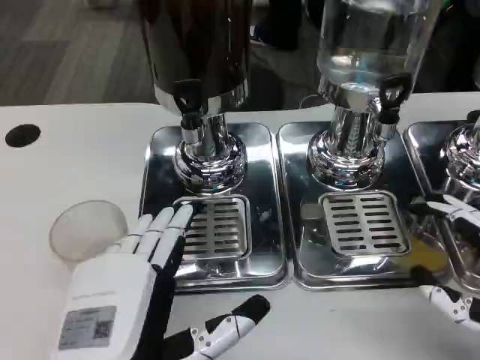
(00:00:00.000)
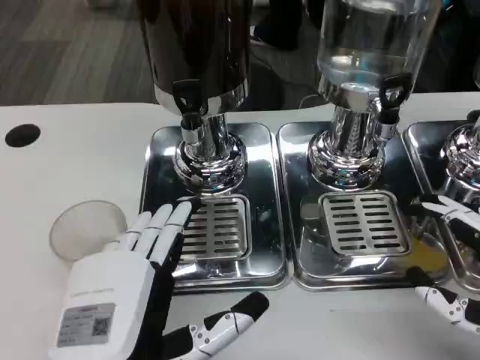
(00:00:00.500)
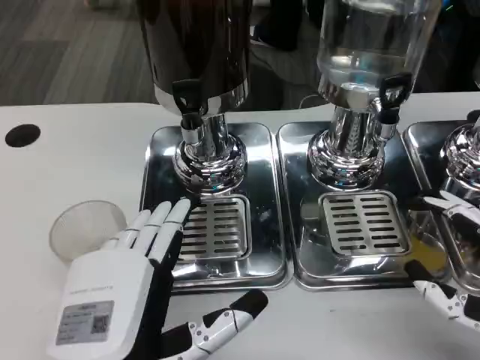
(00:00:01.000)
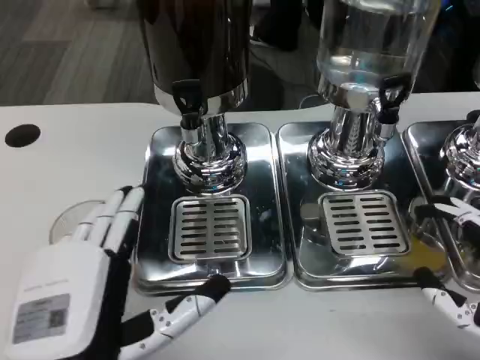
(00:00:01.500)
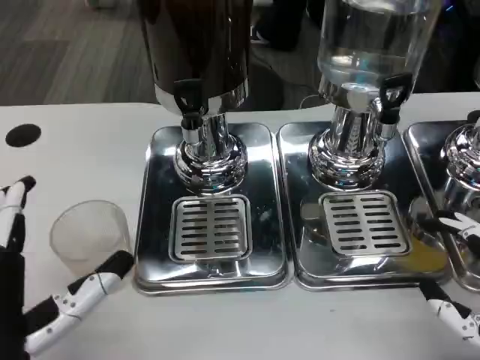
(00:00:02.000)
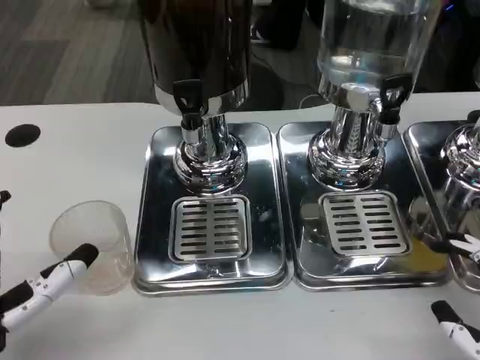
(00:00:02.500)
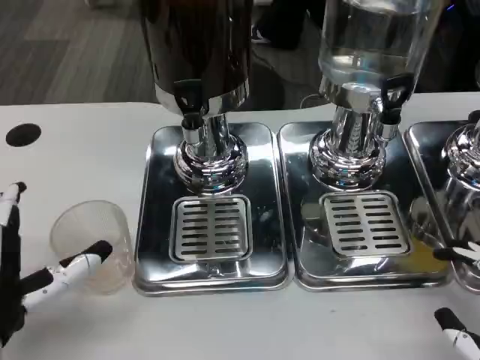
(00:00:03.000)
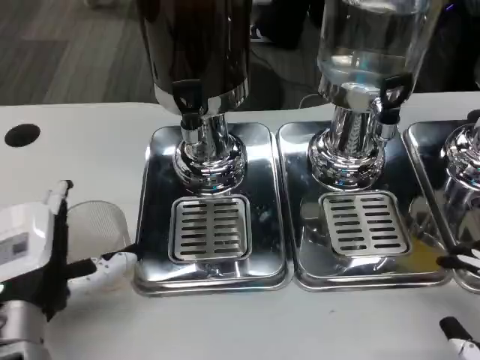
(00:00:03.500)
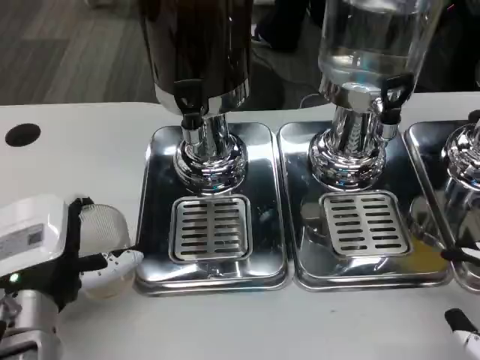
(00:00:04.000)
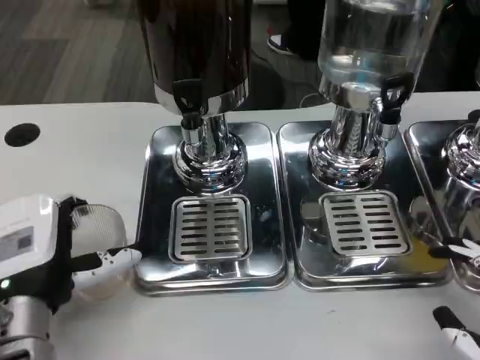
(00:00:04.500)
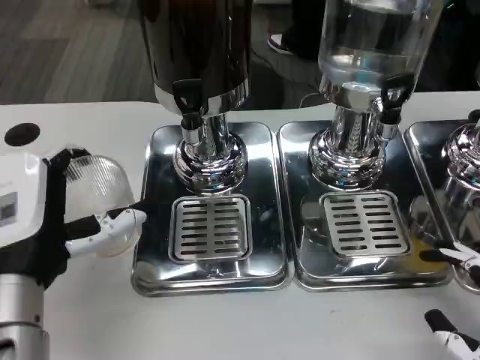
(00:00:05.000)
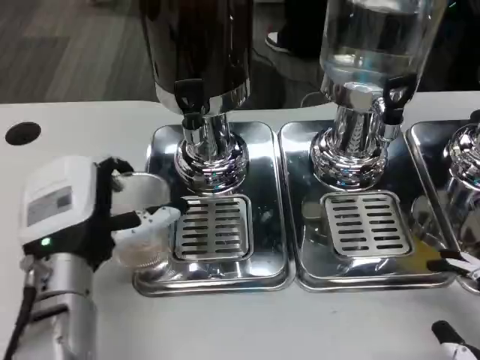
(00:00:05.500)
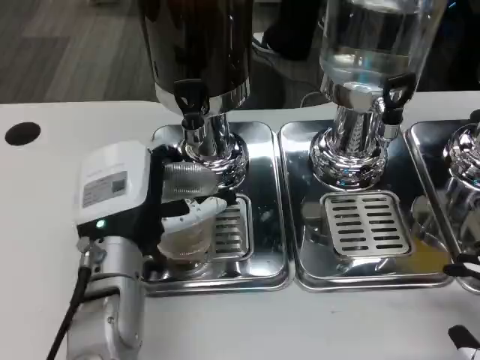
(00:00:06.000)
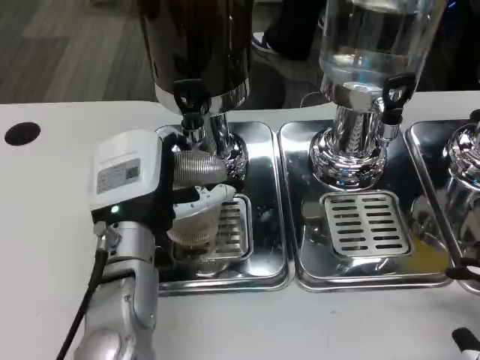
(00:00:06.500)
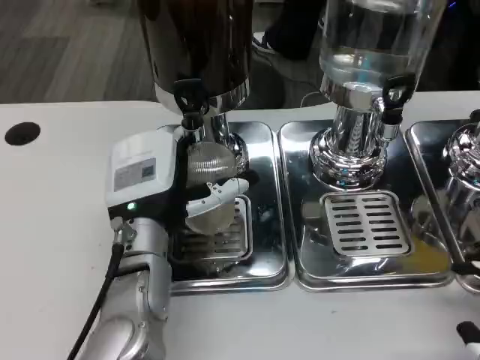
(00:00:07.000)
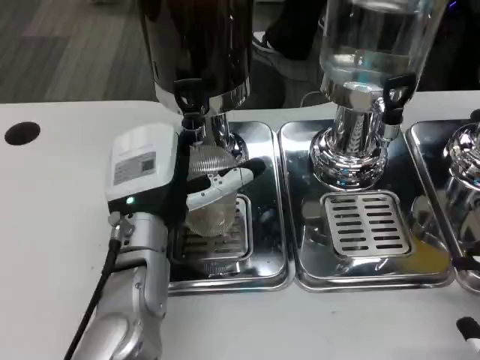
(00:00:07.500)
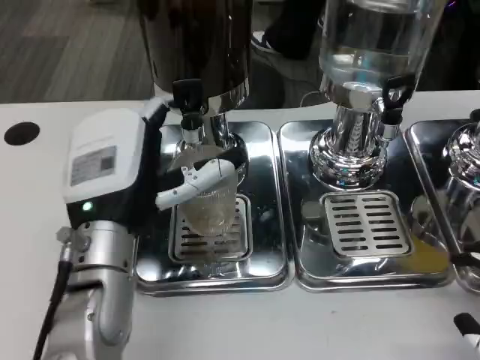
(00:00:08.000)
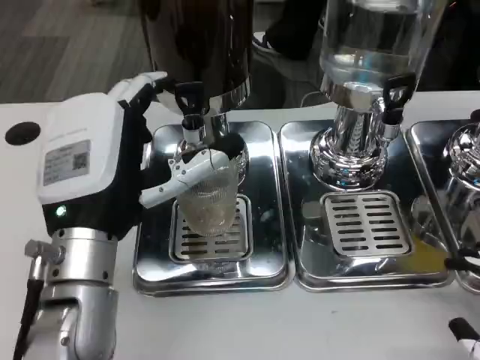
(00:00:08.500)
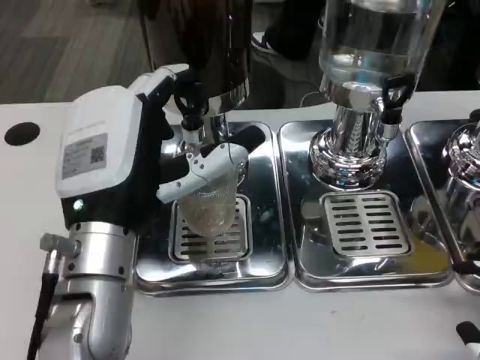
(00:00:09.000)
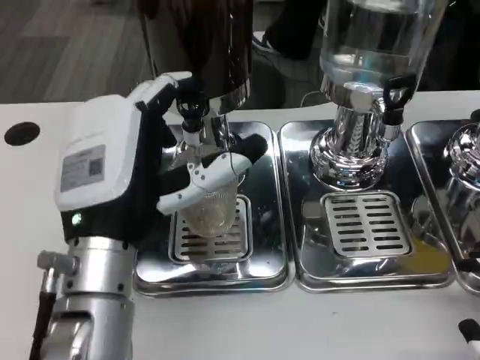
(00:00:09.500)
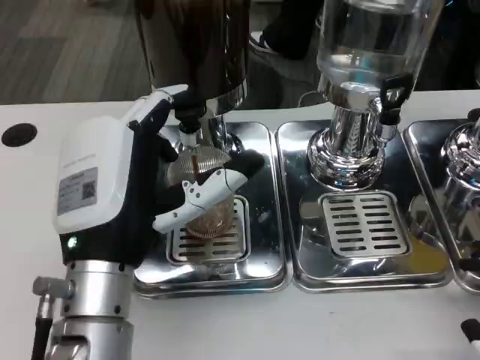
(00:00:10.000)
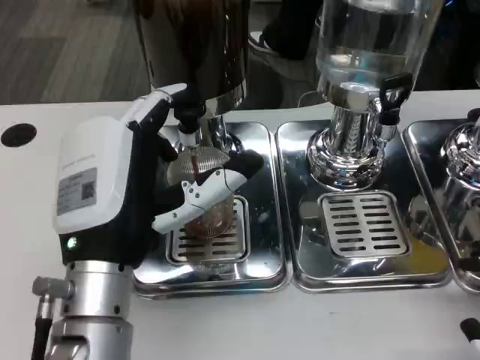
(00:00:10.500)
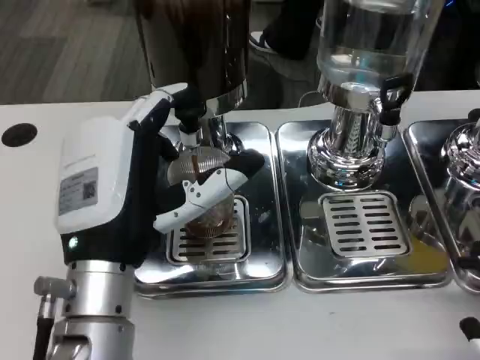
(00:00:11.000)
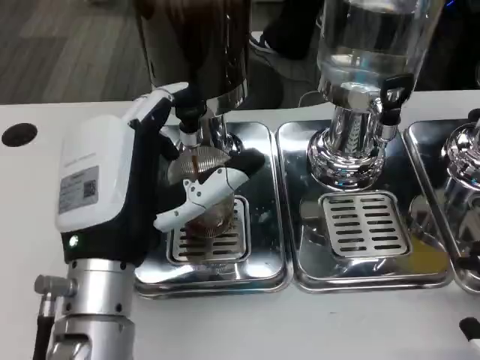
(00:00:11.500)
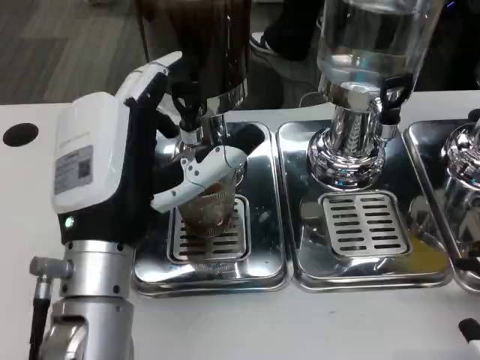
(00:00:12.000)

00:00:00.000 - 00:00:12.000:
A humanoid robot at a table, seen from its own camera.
Task of the whole recording: Grasp the cup under the faucet to collect the drink, then remove the cup.
00:00:00.000 - 00:00:02.000: The left hand goes some 5 cm to the left.
00:00:02.000 - 00:00:04.000: The left hand shifts some 10 cm forward.
00:00:04.000 - 00:00:06.000: The left hand shifts roughly 5 cm to the right.
00:00:06.000 - 00:00:08.000: The hands move only a little.
00:00:10.000 - 00:00:12.000: There are only small adjustments of the hands.

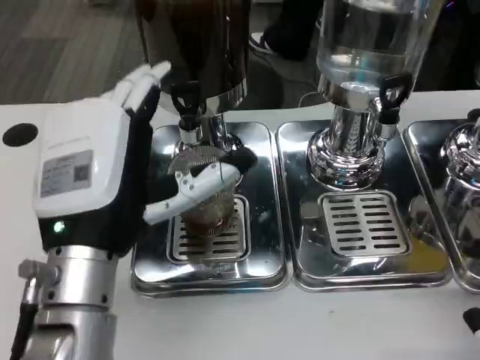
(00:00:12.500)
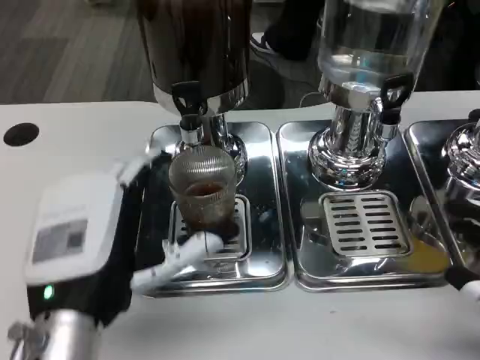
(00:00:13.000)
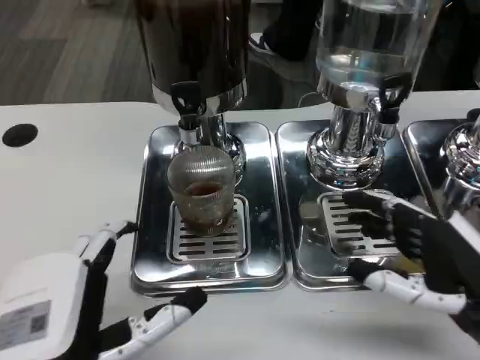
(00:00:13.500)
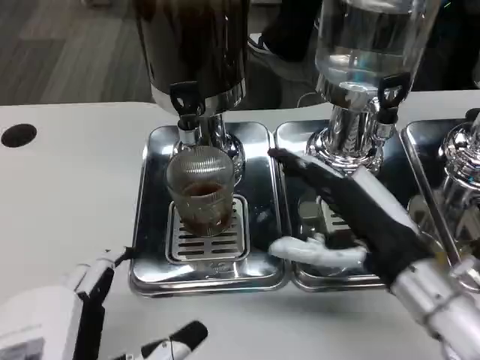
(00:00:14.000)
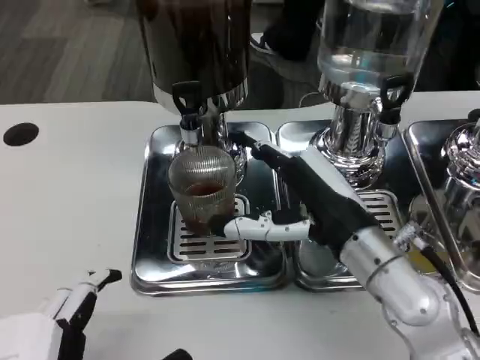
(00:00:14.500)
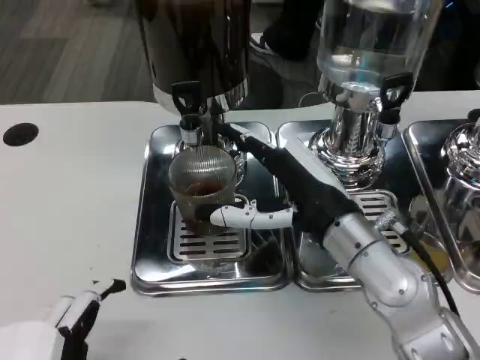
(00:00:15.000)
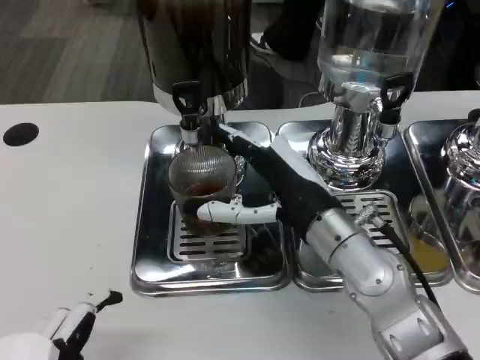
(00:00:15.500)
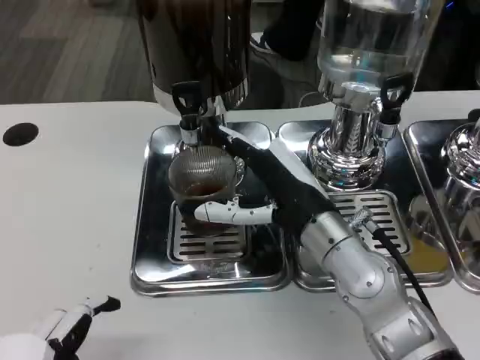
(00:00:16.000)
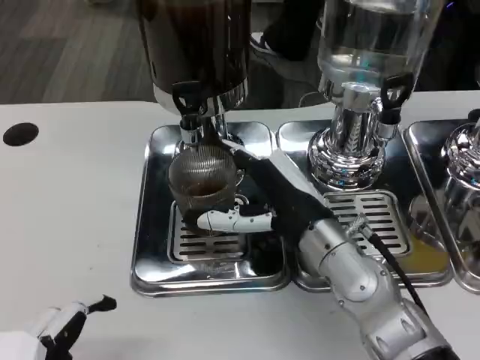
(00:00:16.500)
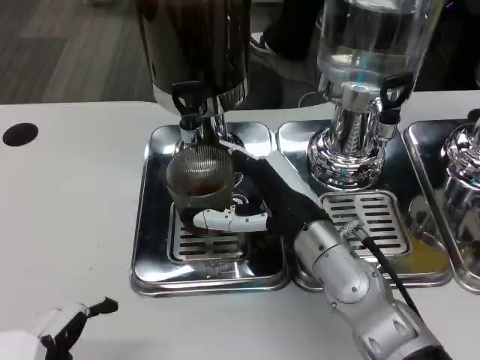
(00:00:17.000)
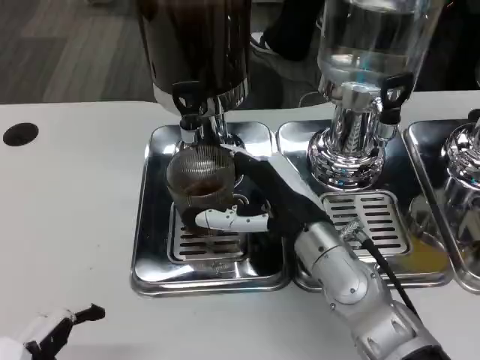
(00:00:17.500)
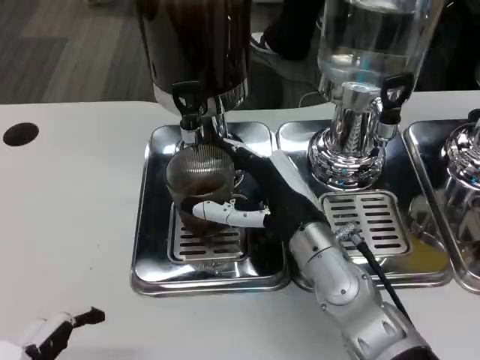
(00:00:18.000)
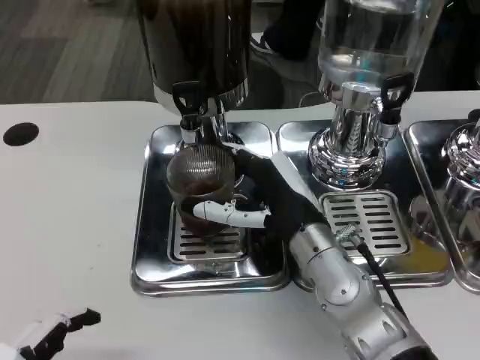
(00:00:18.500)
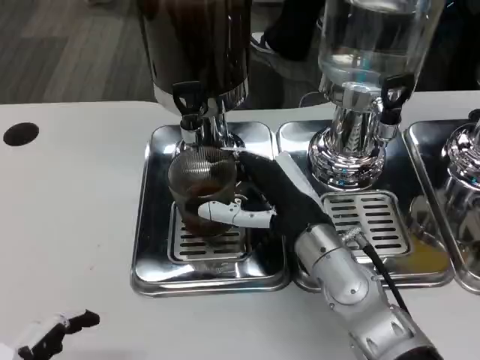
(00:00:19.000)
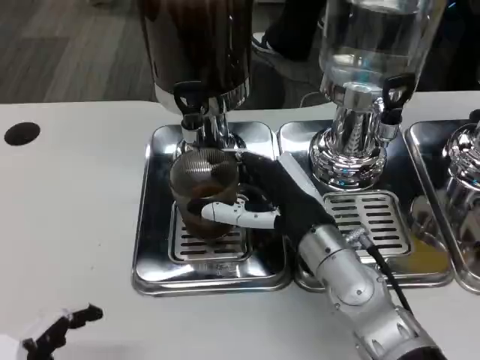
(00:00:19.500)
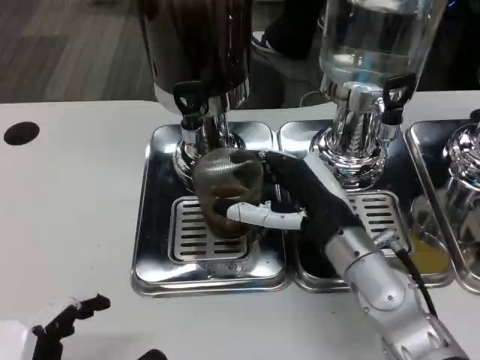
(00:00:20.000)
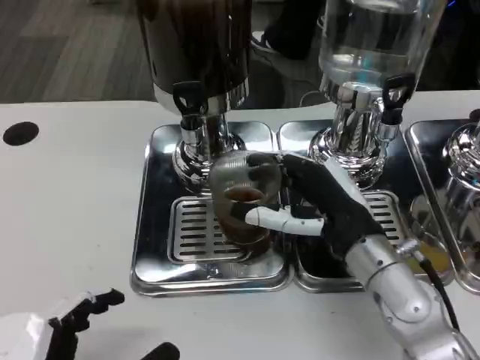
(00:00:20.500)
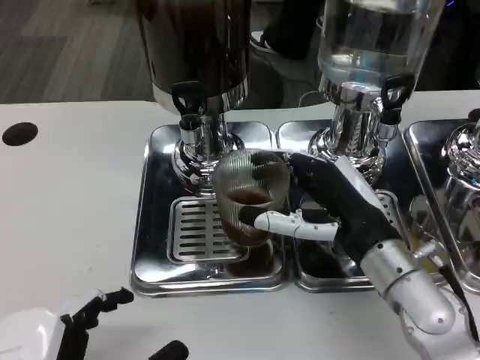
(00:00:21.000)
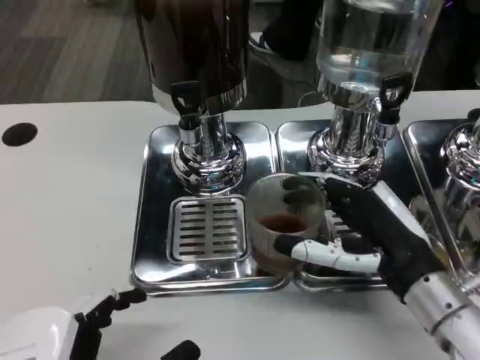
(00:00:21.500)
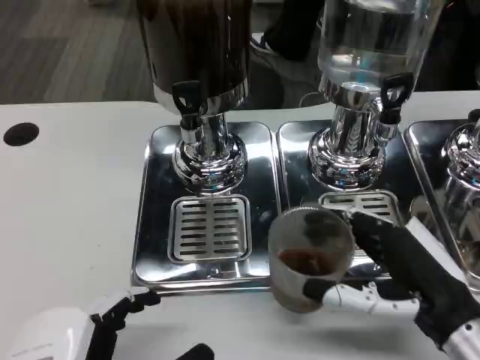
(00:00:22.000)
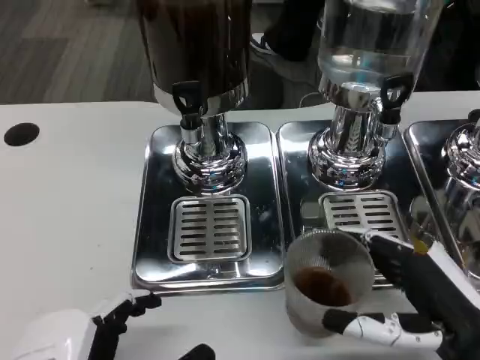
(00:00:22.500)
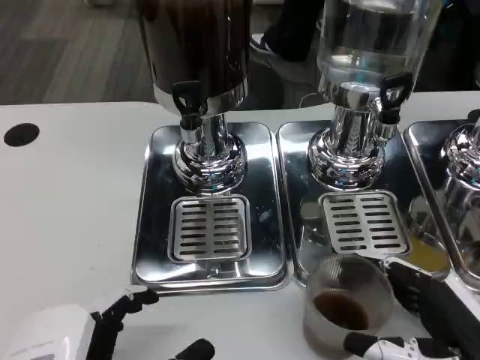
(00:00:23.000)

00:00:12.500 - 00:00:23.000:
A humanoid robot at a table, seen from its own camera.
Task of the whole recording: Grasp the cup under the faucet to collect the drink, then remove the cup.
00:00:12.500 - 00:00:14.500: The left hand shifts some 15 cm backward; the right hand goes some 25 cm to the left and forward.
00:00:14.500 - 00:00:16.500: The right hand ends up about 5 cm from where it was.
00:00:16.500 - 00:00:19.000: The hands make only small movements.
00:00:19.000 - 00:00:21.000: The right hand goes about 5 cm to the right.
00:00:21.000 - 00:00:23.000: The right hand shifts approximately 15 cm backward, to the right and downward.

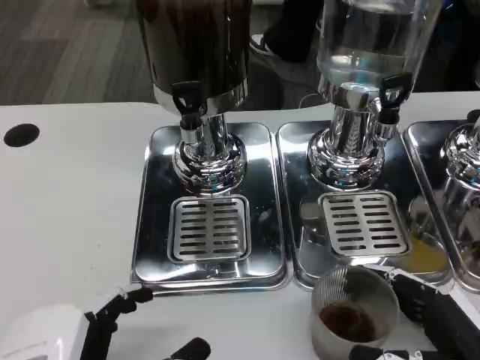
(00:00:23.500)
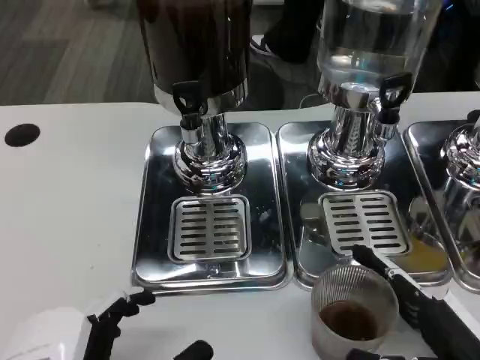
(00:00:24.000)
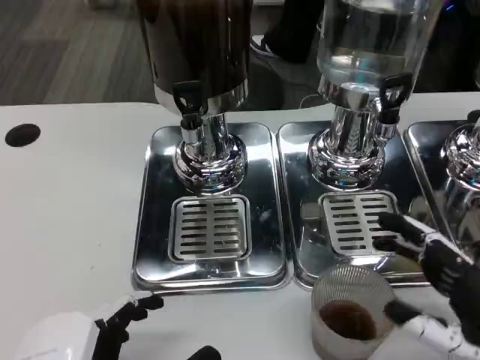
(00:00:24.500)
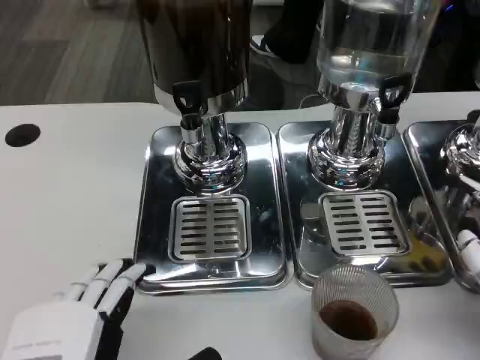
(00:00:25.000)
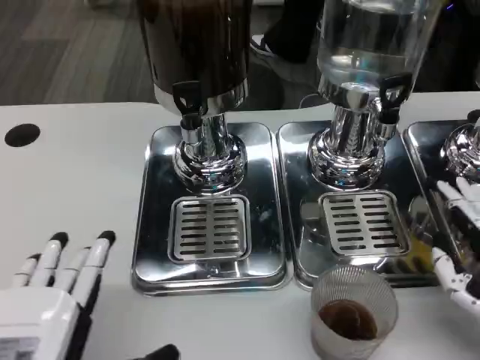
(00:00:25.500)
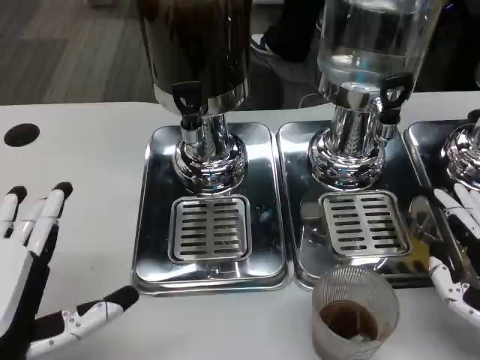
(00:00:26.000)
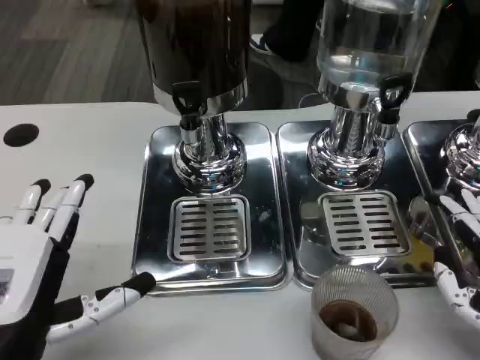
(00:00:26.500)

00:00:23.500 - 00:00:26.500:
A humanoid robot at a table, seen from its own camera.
Task of the whole recording: Grasp the cup under the faucet to collect the drink, then remove the cup.
00:00:23.500 - 00:00:25.000: The right hand goes some 5 cm upward.
00:00:25.000 - 00:00:26.500: The left hand goes some 10 cm forward and to the left.
